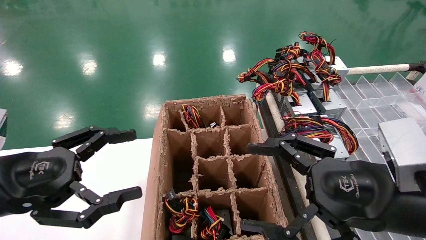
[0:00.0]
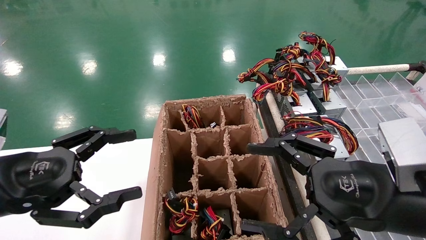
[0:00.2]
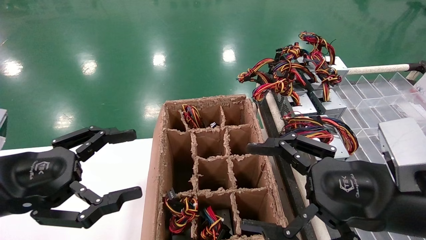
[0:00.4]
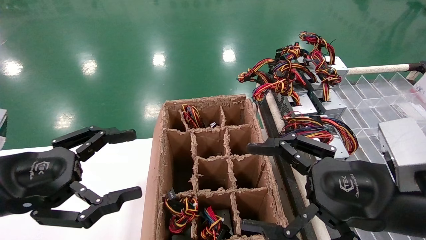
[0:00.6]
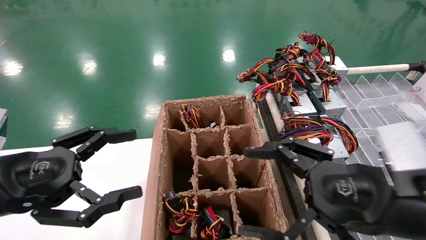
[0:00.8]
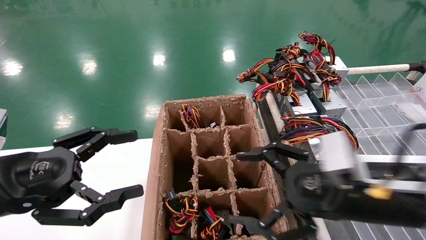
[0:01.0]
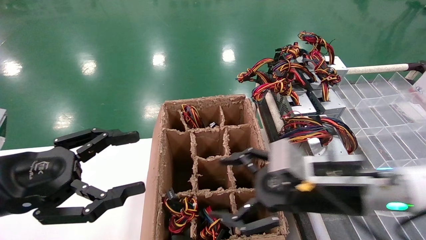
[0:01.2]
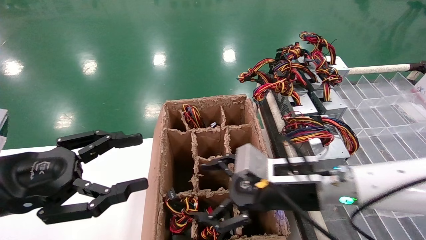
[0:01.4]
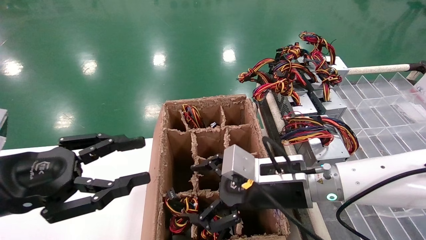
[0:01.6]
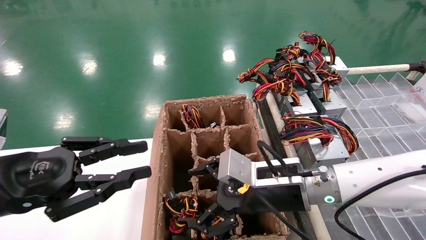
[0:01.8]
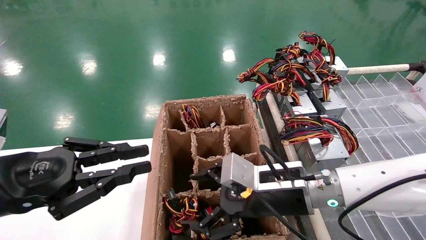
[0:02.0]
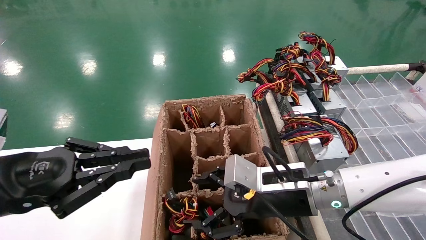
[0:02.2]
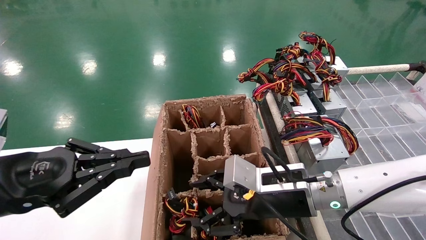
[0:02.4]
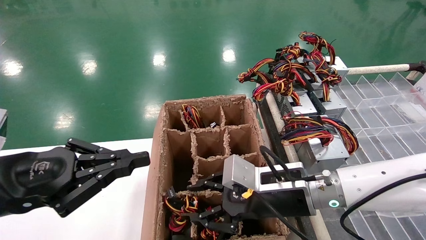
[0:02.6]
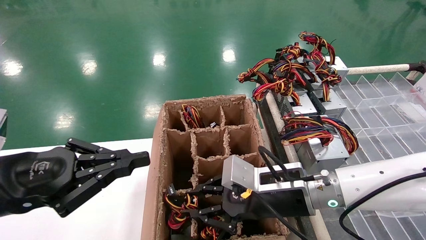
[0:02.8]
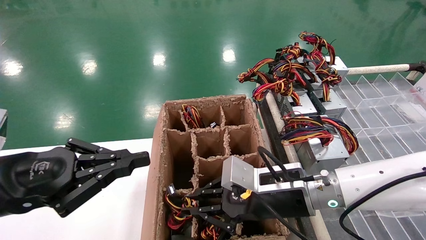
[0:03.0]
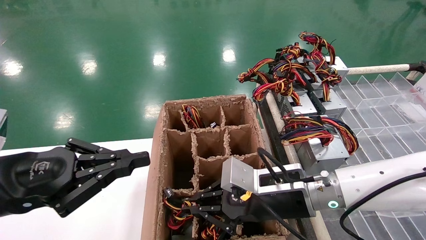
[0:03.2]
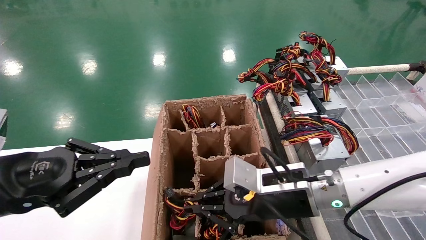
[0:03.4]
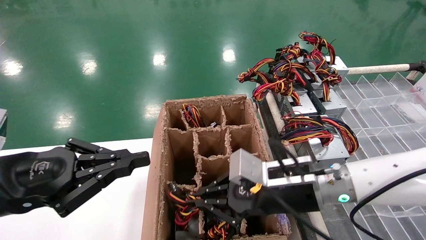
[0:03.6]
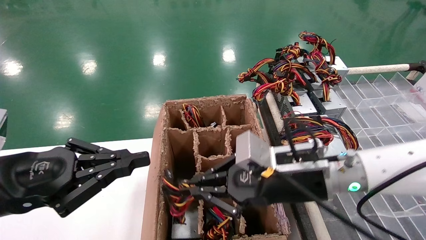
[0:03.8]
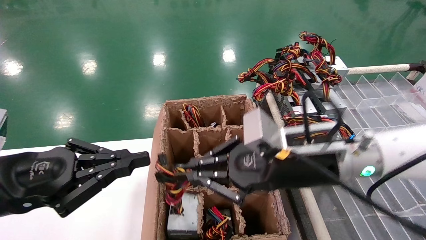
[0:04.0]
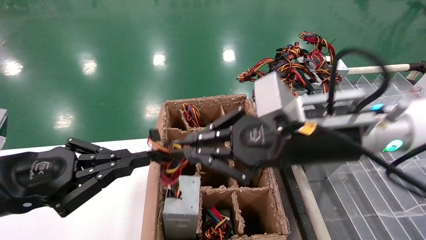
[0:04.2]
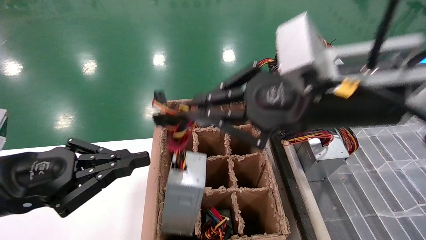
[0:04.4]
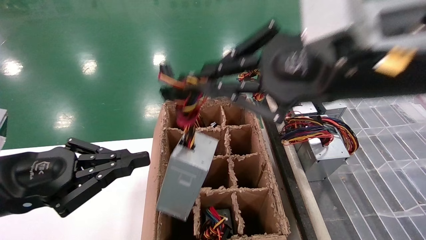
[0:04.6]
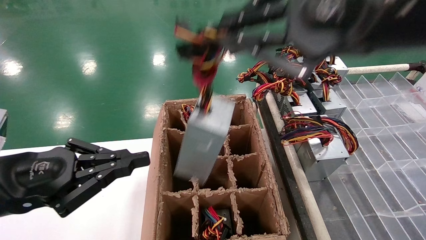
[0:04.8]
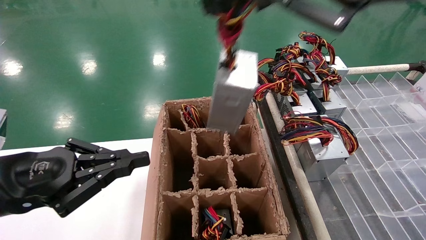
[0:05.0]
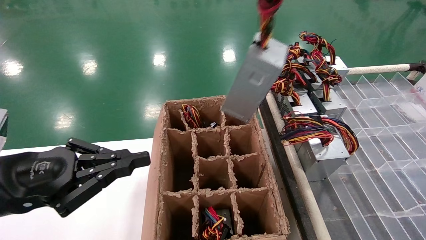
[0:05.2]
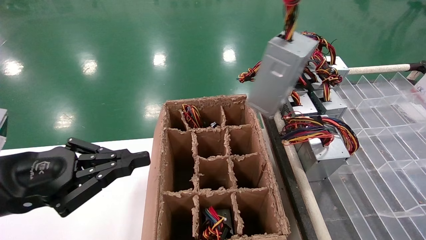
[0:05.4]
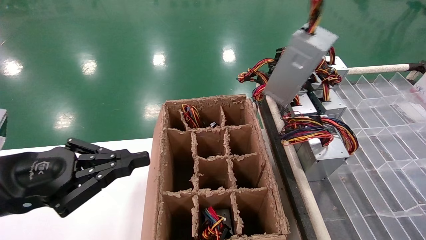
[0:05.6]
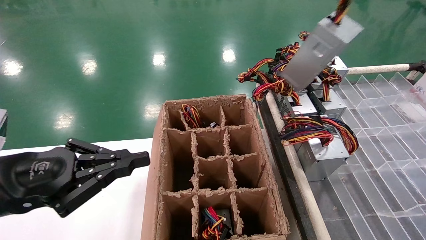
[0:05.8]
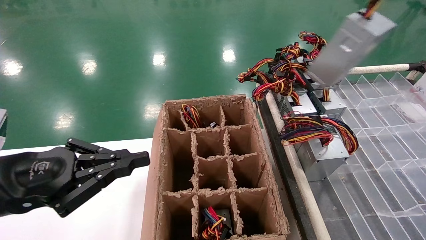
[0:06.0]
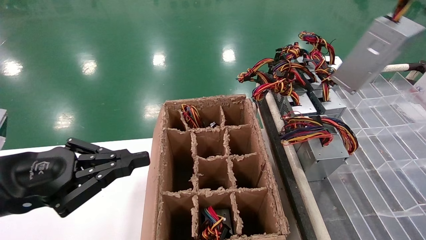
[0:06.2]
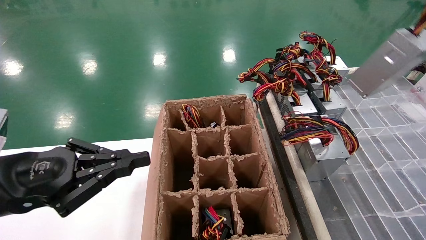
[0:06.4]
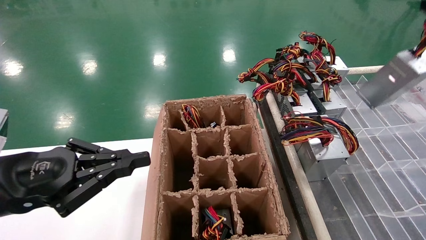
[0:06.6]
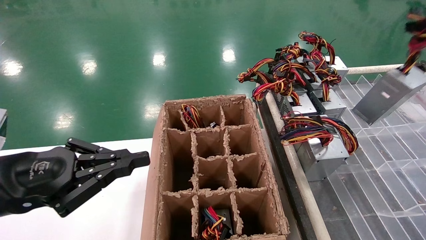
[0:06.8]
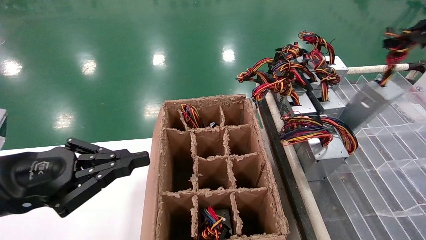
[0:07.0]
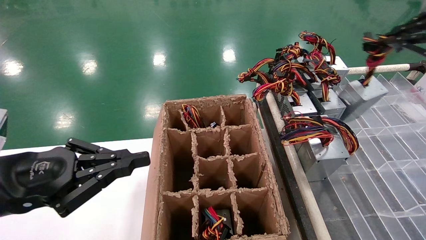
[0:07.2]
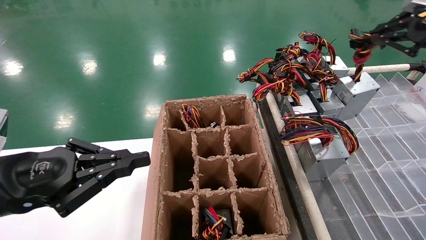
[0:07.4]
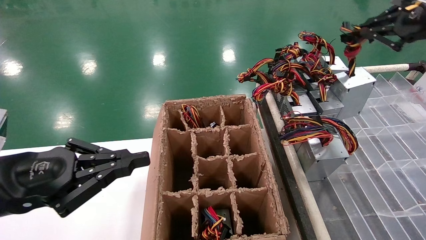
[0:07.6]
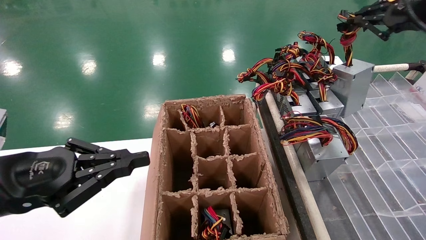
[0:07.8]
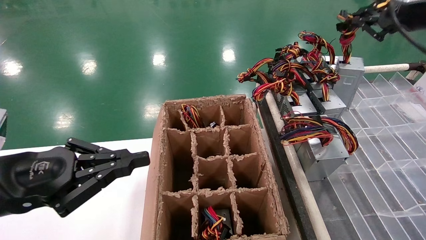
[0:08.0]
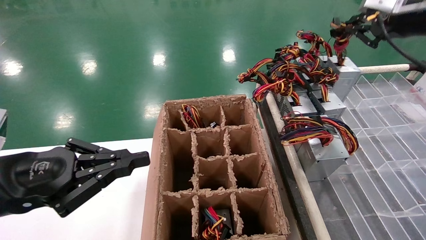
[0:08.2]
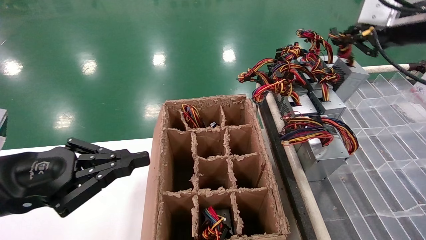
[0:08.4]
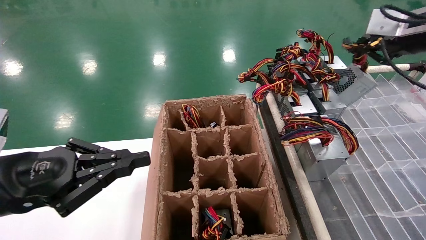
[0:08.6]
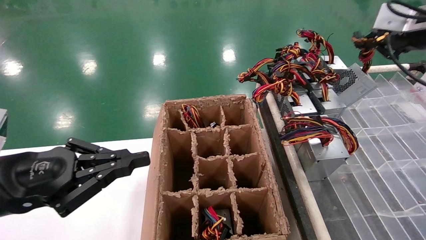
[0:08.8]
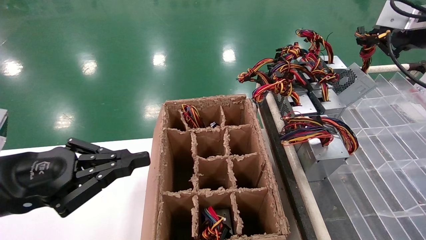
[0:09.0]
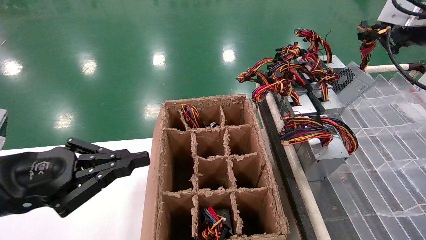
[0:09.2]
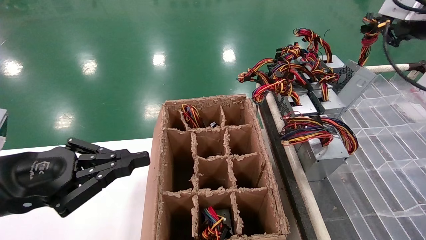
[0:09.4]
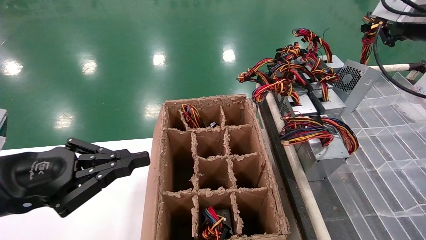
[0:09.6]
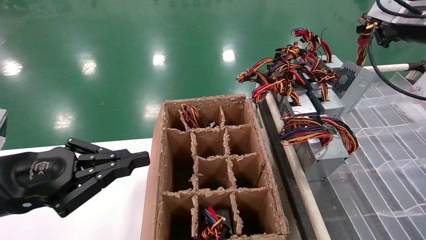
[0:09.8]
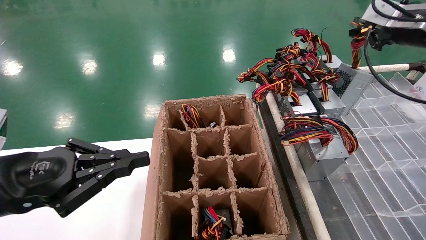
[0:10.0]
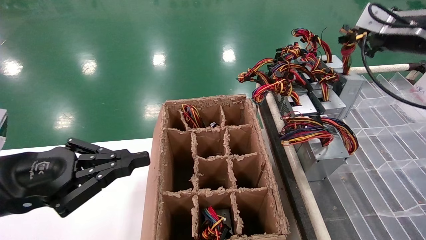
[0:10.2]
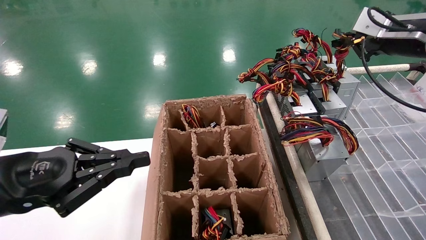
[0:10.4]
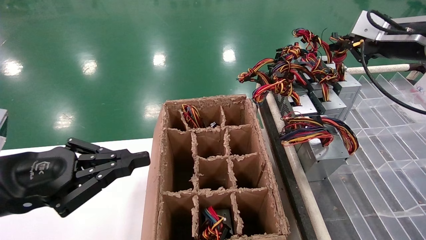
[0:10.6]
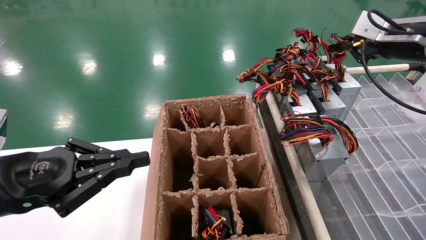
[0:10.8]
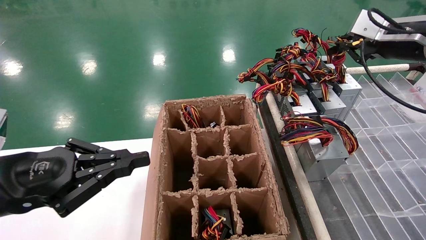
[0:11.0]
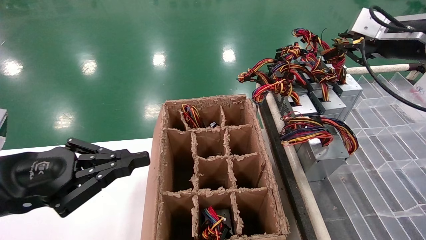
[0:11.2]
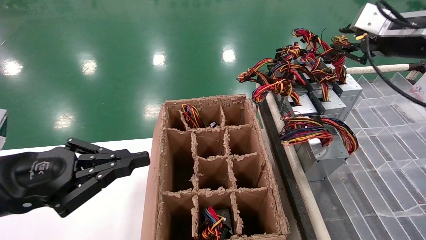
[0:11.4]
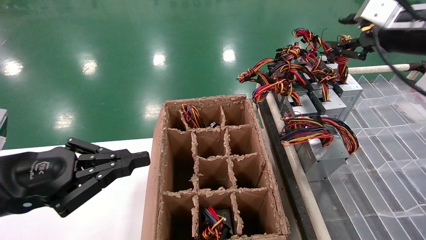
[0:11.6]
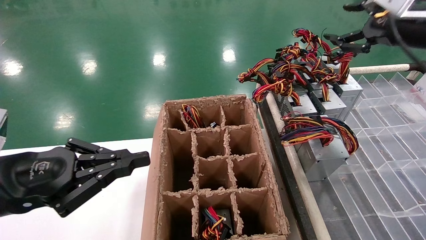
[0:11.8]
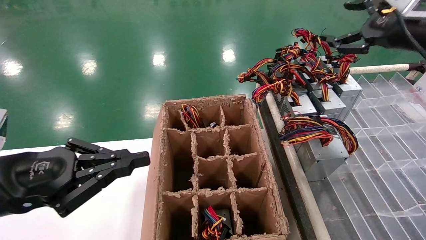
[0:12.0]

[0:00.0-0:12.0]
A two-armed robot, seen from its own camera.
Step, 0:01.2 to 0:03.2: Grab the main unit power supply from the containment box.
Step, 0:03.4 to 0:11.6: Place the main unit power supply in the designated area.
0:00.0 to 0:01.6: The right gripper moves forward, to the left and downward, about 15 cm.
0:01.6 to 0:03.0: The left gripper closes. Meanwhile the right gripper closes.
0:03.0 to 0:04.4: The right gripper shifts roughly 20 cm upward and backward.
0:04.4 to 0:06.0: The right gripper goes approximately 25 cm upward, to the right and backward.
0:06.0 to 0:07.6: The right gripper shifts roughly 20 cm forward, downward and to the right.
0:07.6 to 0:09.0: The right gripper is displaced forward by some 5 cm.
0:09.0 to 0:10.4: The grippers move only a little.
0:10.4 to 0:12.0: The right gripper opens its fingers.

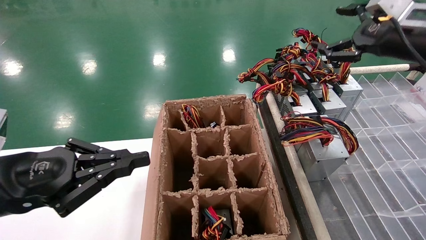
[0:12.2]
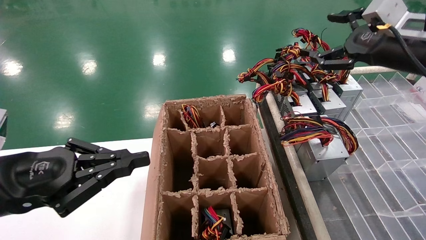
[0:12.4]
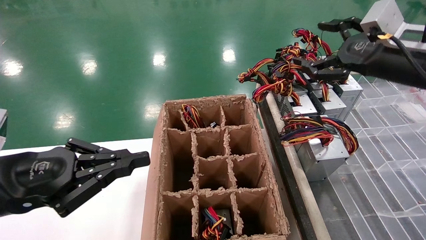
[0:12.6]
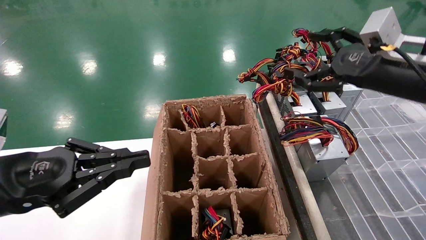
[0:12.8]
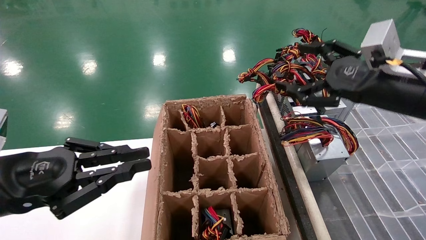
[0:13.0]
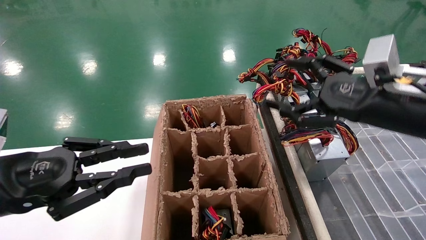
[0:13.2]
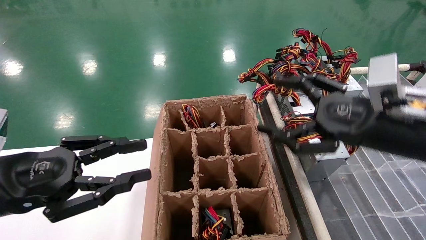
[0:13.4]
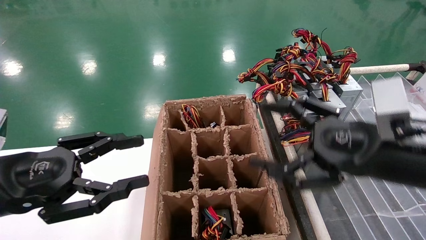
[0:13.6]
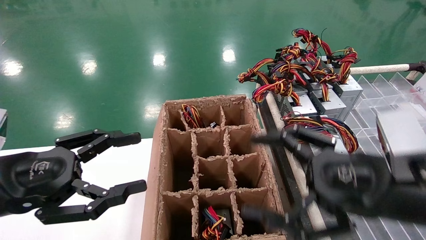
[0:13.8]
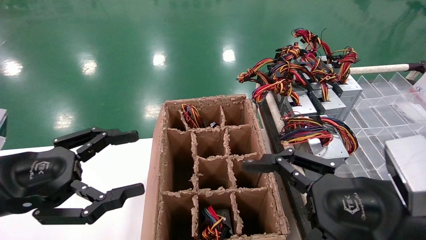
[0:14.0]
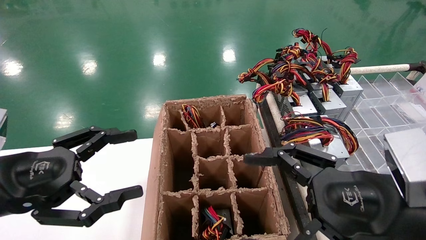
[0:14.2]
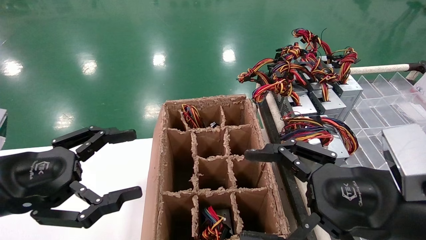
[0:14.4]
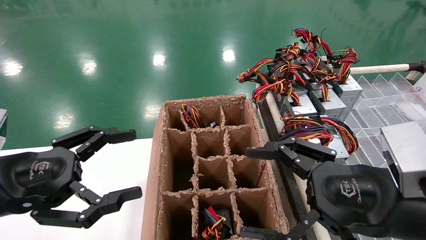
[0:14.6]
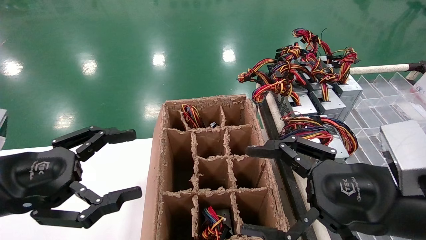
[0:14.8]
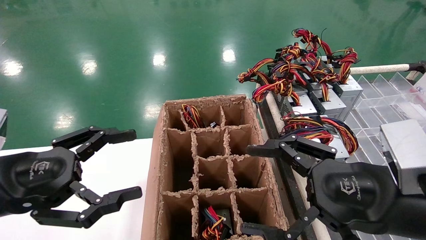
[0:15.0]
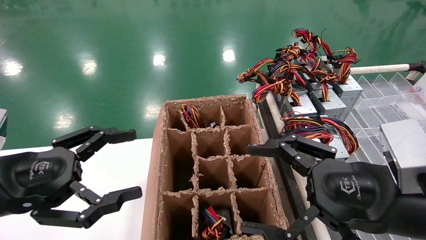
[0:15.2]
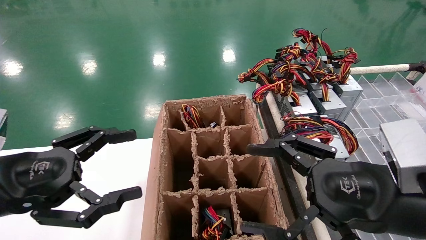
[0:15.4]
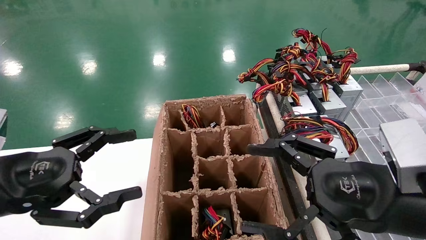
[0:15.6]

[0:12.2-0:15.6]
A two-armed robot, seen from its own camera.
0:12.2 to 0:13.8: The left gripper opens up. Meanwhile the right gripper is displaced backward, downward and to the left by approximately 25 cm.
0:13.8 to 0:15.6: The grippers move only a little.
